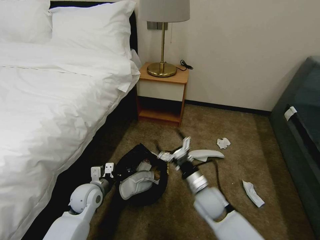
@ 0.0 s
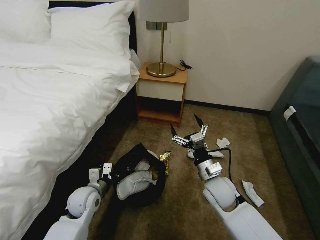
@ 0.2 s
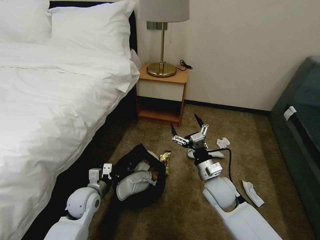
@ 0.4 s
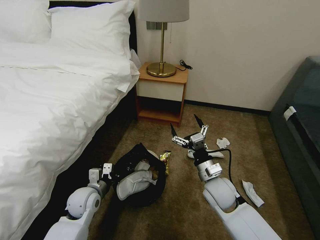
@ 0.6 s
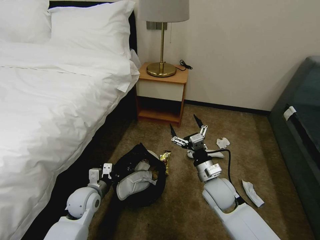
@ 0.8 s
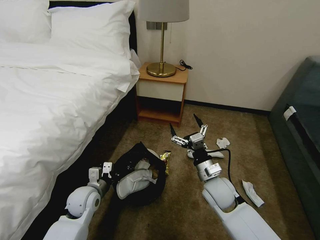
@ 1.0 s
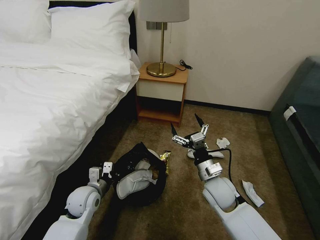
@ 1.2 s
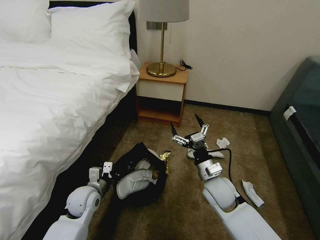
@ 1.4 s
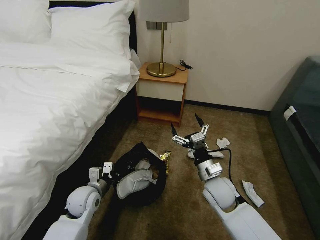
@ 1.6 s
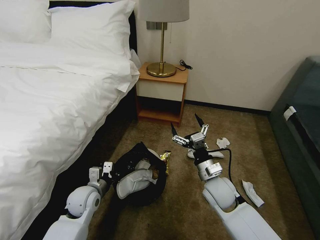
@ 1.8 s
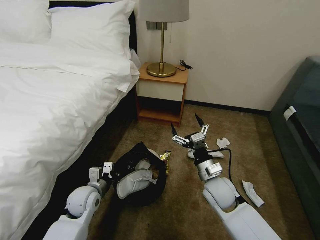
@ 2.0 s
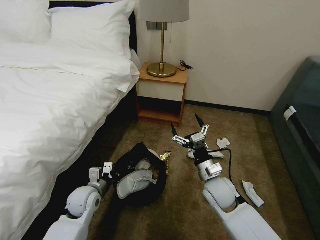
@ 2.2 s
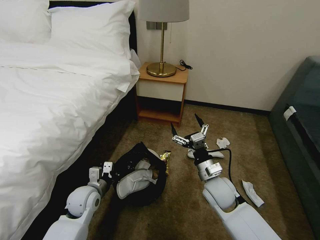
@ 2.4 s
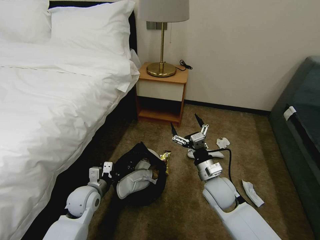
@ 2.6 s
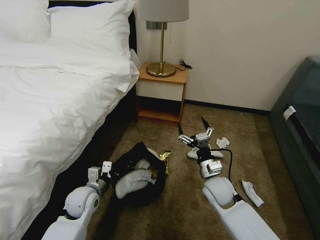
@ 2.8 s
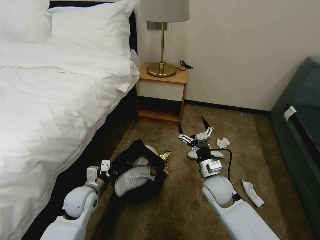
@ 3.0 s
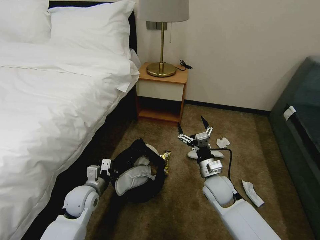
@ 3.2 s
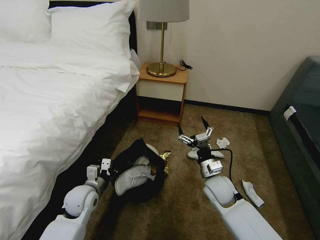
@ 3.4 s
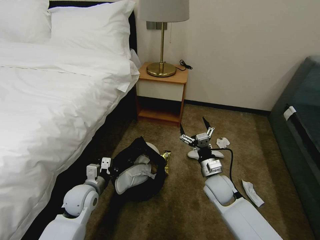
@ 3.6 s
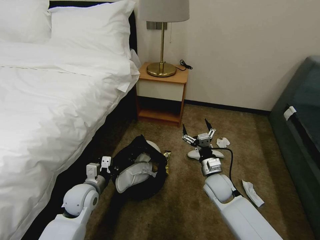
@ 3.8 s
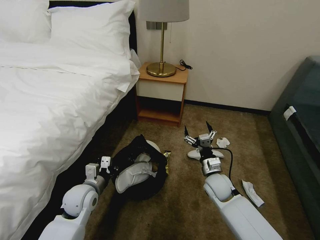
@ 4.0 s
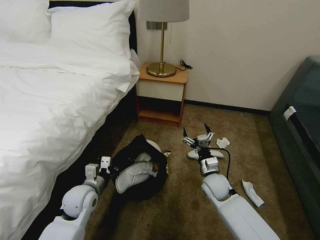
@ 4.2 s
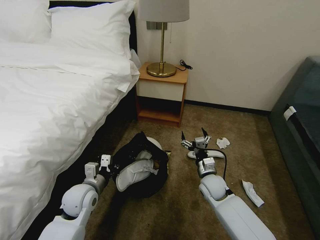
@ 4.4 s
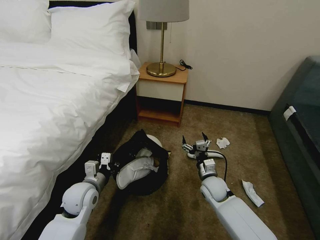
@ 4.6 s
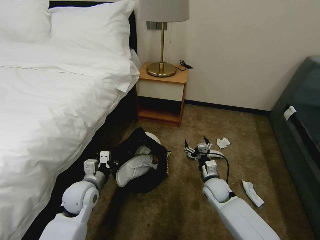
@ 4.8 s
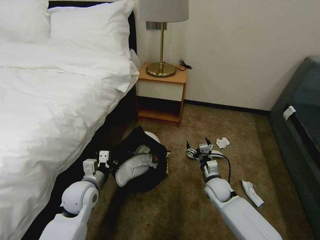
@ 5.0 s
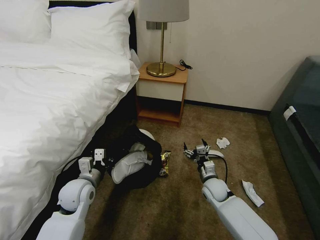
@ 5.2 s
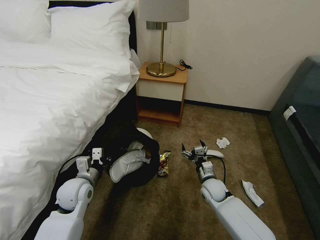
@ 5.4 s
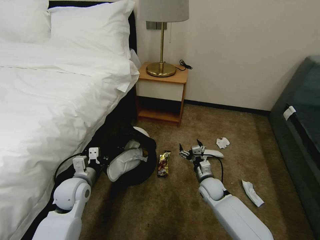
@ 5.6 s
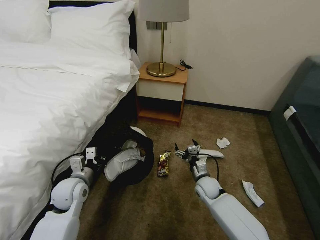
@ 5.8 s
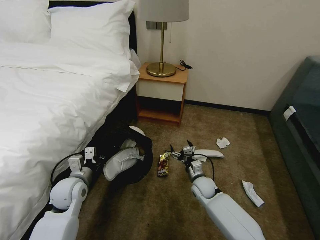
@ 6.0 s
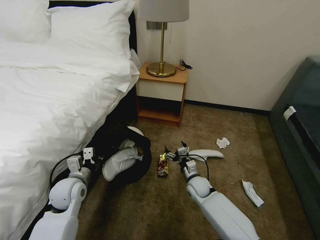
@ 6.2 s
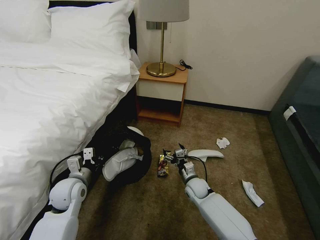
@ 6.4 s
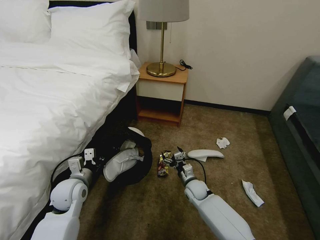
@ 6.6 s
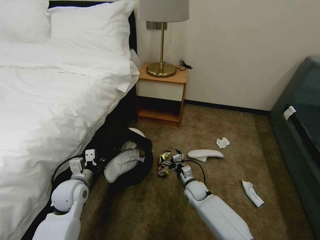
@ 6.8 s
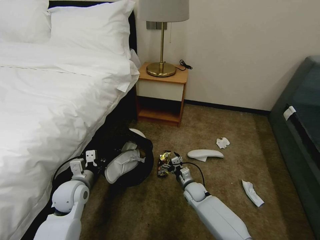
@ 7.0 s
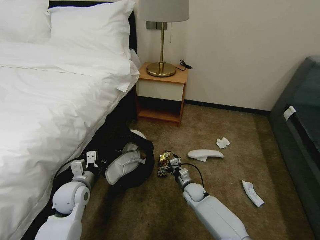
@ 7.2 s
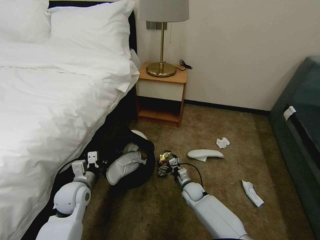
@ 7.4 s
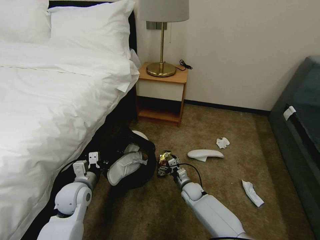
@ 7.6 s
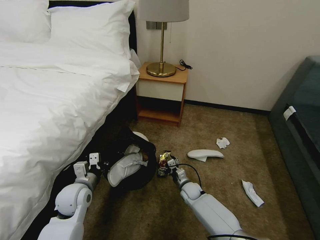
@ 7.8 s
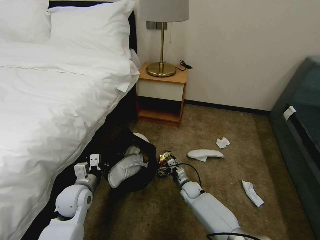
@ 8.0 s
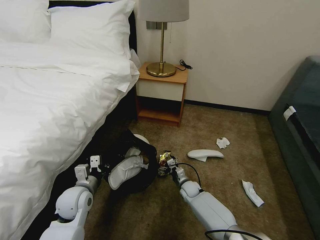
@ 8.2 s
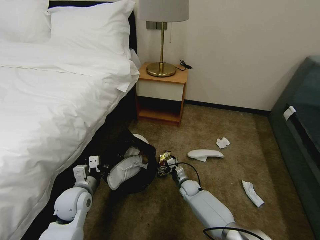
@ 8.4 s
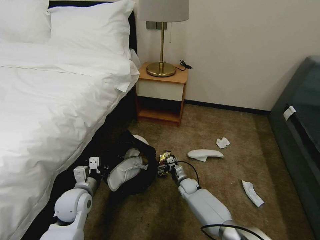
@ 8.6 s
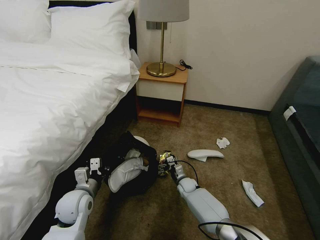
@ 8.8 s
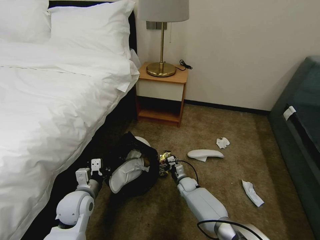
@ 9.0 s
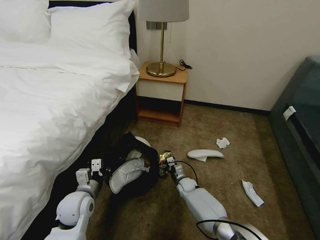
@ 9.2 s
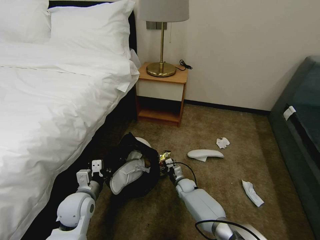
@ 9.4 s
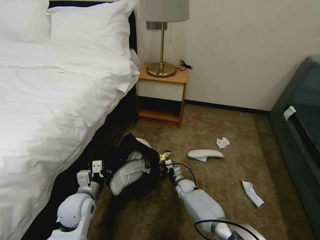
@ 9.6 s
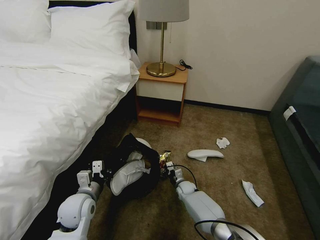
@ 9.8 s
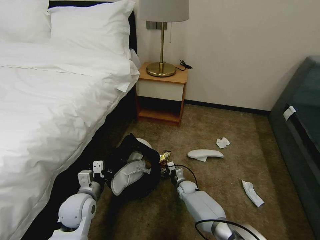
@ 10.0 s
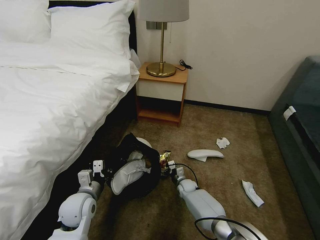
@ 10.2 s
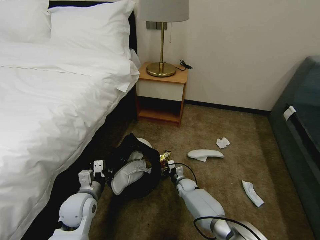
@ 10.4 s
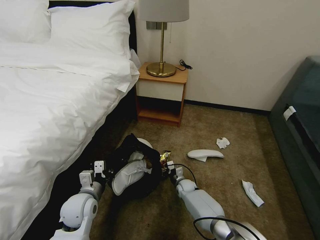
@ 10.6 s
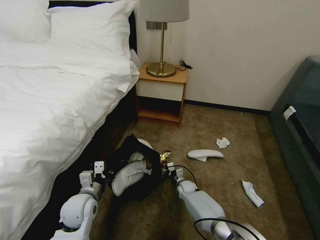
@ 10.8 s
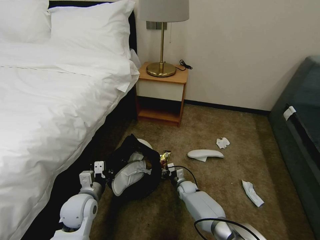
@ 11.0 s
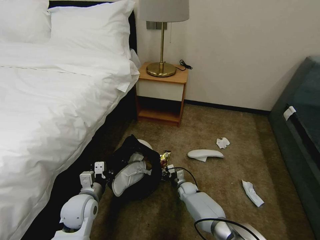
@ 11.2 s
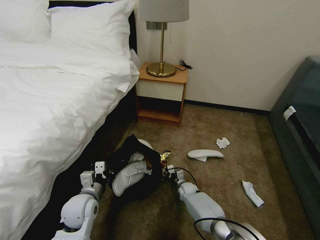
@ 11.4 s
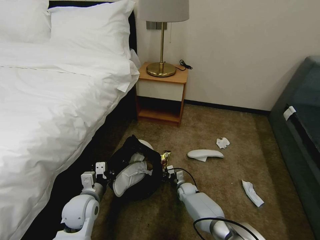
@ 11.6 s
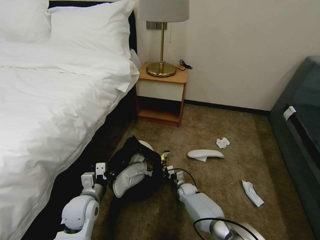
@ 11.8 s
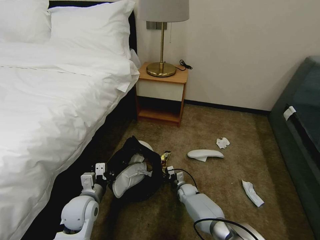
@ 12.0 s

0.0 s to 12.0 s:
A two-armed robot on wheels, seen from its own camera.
Task of the whole recording: Pick up the trash bin, then pick up the garbage on the floor and place it into the trash bin.
0.0 to 1.6 s: The right gripper changes place by roughly 5 cm.
1.6 to 3.0 s: There are only small adjustments of the grippers.
3.0 to 4.4 s: The right gripper is displaced downward by some 5 cm.
4.4 to 6.0 s: The right gripper shifts some 5 cm downward.
6.0 to 7.6 s: The right gripper travels downward by some 5 cm.
7.6 to 9.0 s: The right gripper moves approximately 5 cm.
9.0 to 10.4 s: The grippers move only a little.
10.4 to 12.0 s: The right gripper closes its fingers.

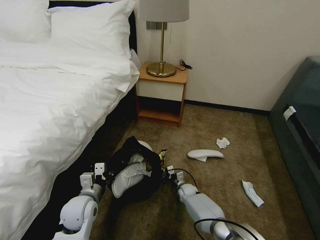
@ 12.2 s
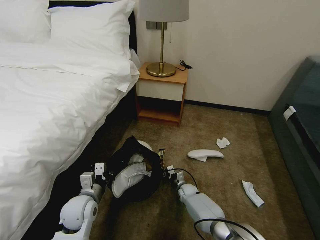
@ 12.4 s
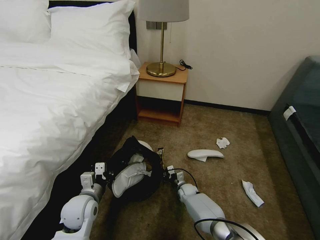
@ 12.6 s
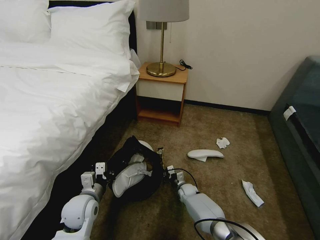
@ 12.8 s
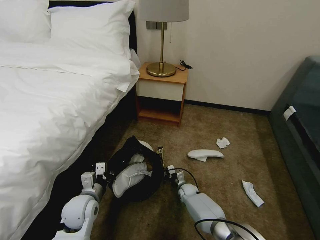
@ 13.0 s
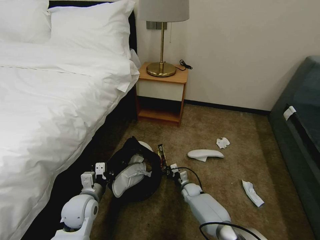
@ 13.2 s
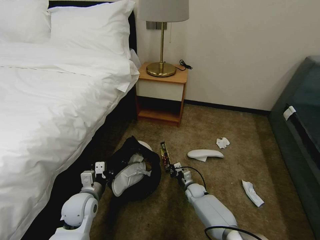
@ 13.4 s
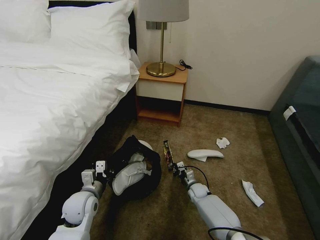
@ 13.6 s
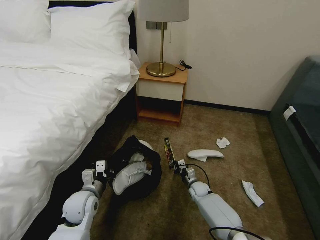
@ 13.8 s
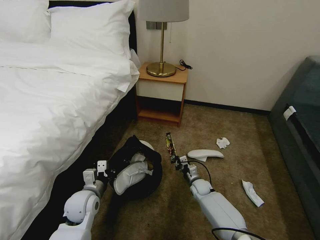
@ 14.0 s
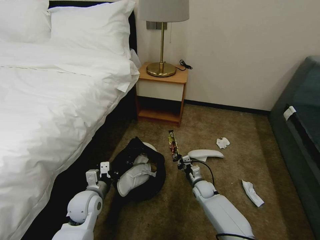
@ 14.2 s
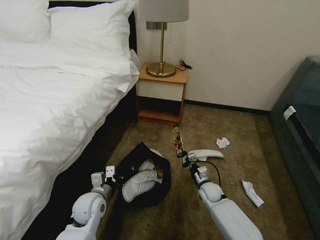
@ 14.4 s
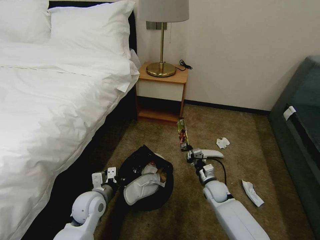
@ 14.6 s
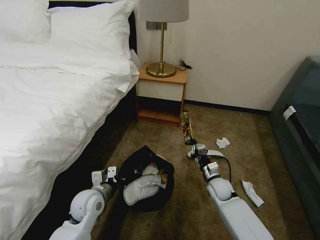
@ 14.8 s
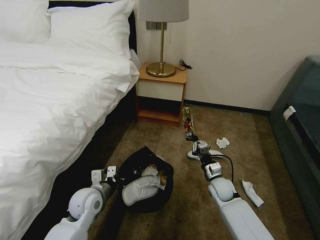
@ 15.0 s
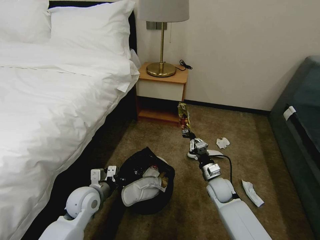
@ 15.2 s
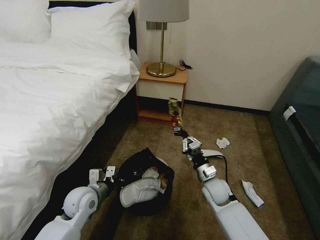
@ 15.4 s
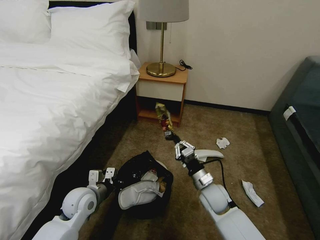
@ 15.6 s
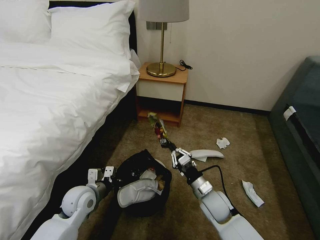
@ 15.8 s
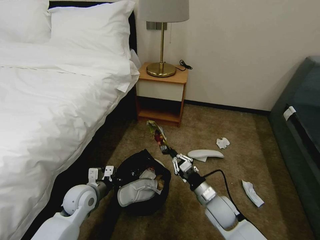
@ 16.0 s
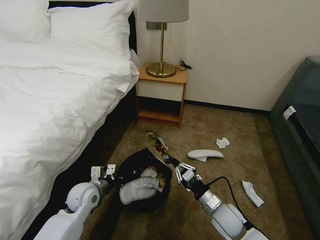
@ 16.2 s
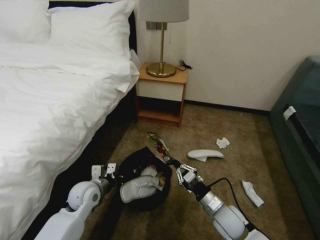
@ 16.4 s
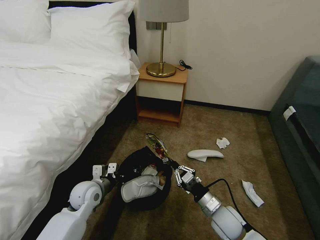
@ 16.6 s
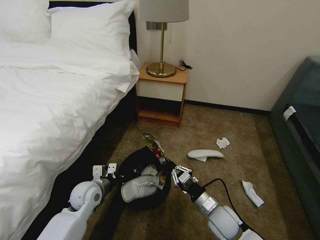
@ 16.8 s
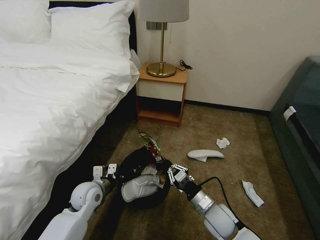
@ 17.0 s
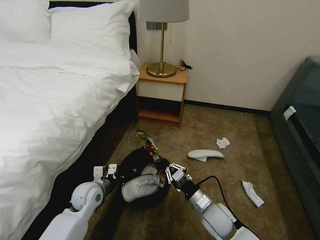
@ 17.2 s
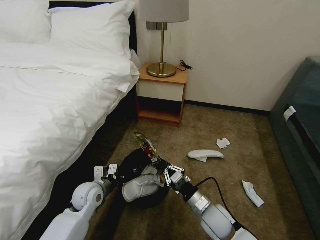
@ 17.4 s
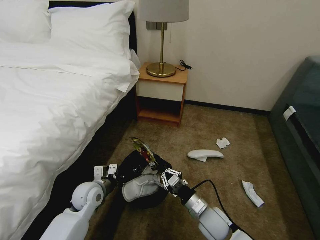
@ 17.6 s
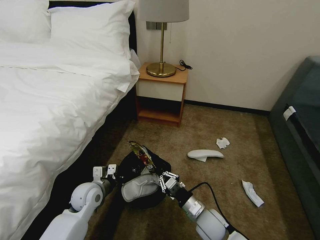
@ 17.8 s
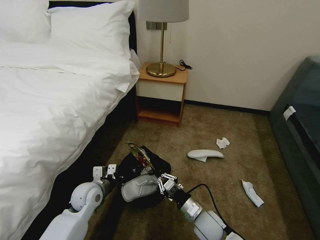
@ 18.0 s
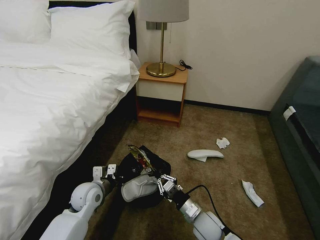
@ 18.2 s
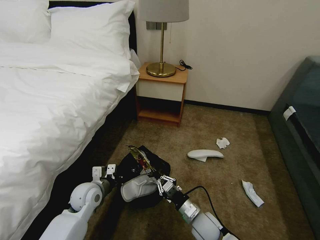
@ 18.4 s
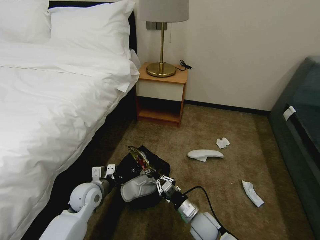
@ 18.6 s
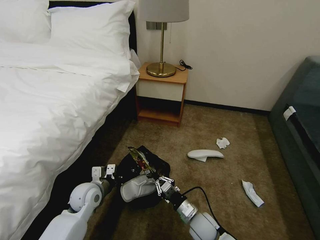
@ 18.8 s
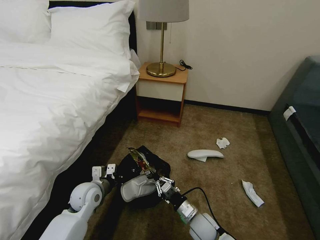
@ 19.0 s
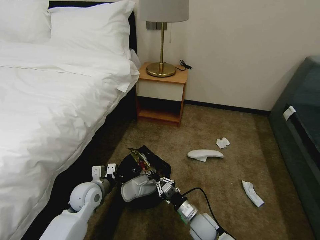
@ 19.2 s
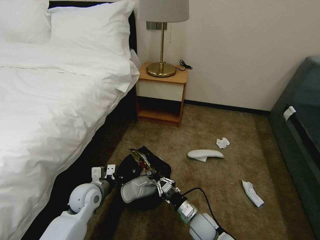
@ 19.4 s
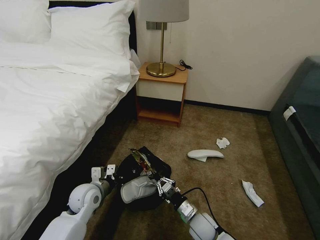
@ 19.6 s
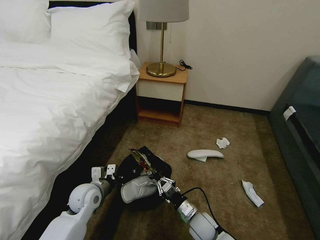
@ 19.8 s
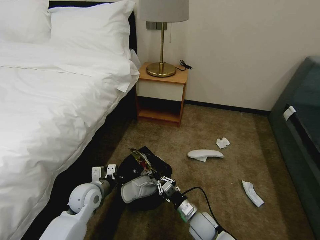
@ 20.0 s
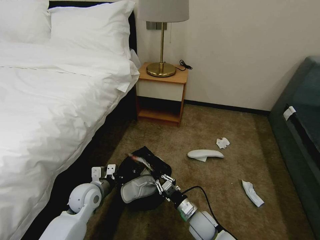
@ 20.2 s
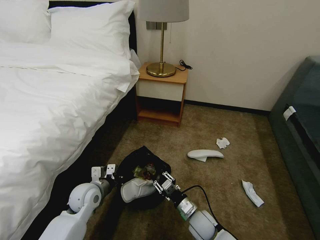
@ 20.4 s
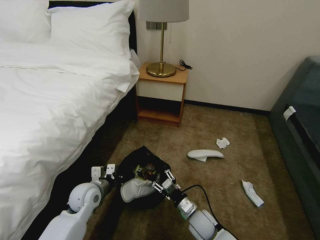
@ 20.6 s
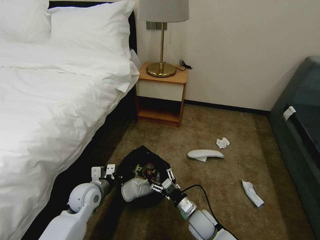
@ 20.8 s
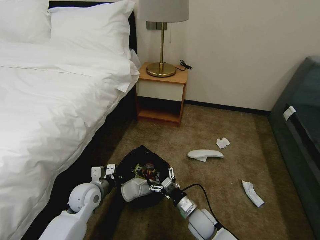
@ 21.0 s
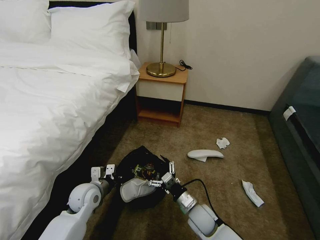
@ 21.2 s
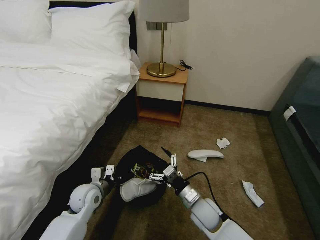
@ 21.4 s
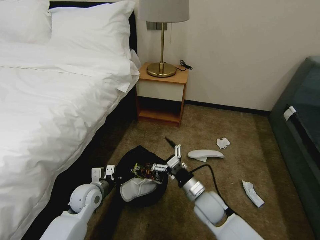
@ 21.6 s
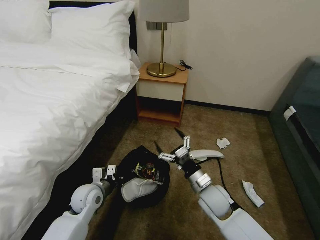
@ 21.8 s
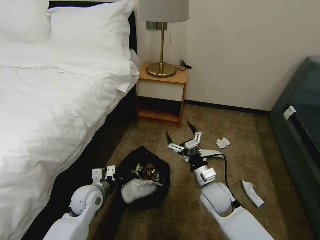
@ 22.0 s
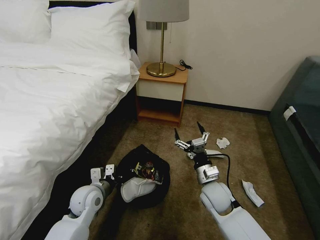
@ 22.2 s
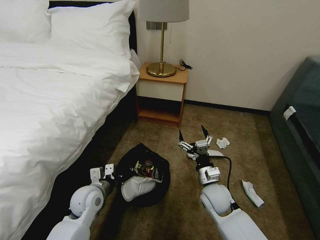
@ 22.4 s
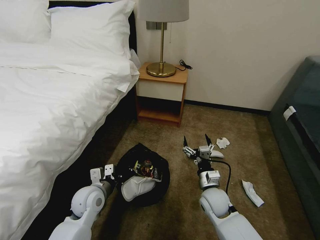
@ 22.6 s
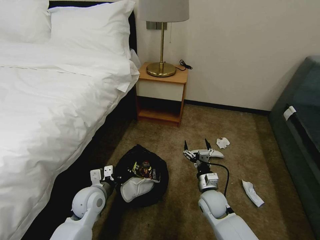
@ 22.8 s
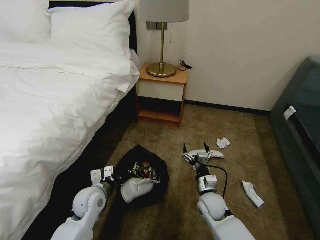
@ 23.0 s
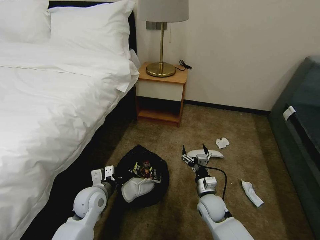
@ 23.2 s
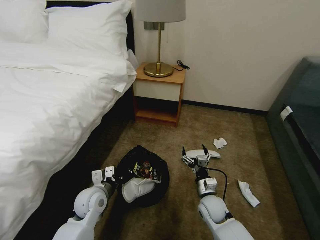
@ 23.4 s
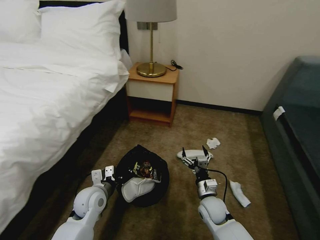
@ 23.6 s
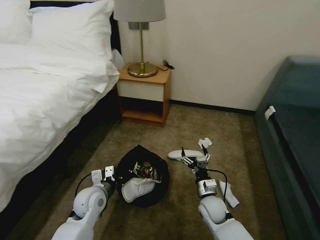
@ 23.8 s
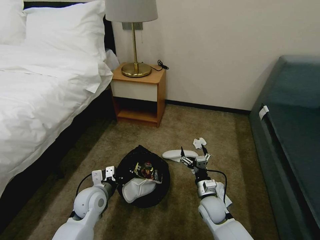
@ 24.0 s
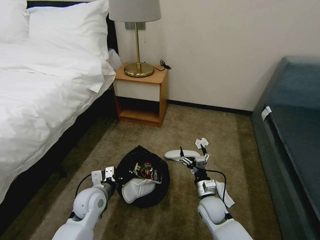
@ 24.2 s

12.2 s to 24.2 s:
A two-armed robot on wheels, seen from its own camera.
Task of the whole recording: Pick up the trash bin, then pick up the garbage on the floor and place it into the trash bin.
12.2 to 13.8 s: The right gripper moves some 5 cm.
13.8 to 15.2 s: The right gripper travels upward by about 15 cm.
15.2 to 16.6 s: The right gripper is displaced backward by some 10 cm.
16.6 to 18.2 s: The right gripper shifts about 5 cm to the left.
18.2 to 19.8 s: The grippers stay close to where they were, moving slightly.
19.8 to 21.2 s: The right gripper opens.
21.2 to 22.6 s: The right gripper ends up about 10 cm from where it was.
22.6 to 24.2 s: The right gripper is displaced downward by roughly 5 cm.
